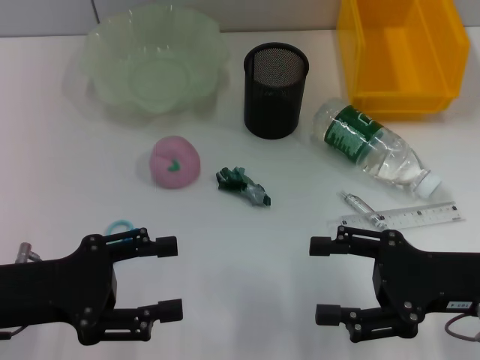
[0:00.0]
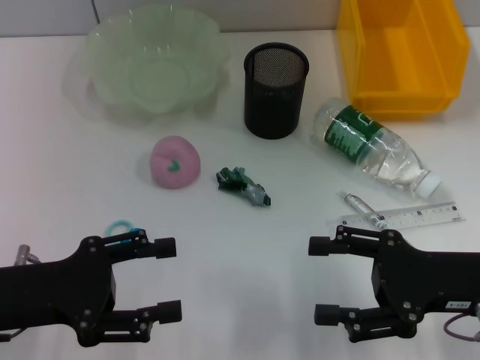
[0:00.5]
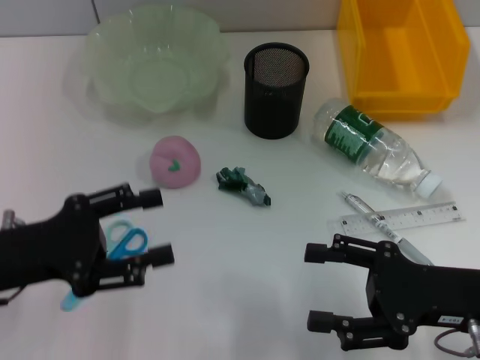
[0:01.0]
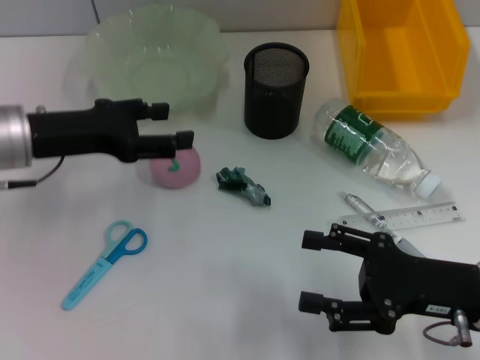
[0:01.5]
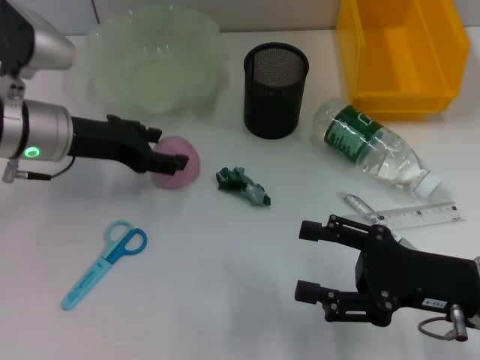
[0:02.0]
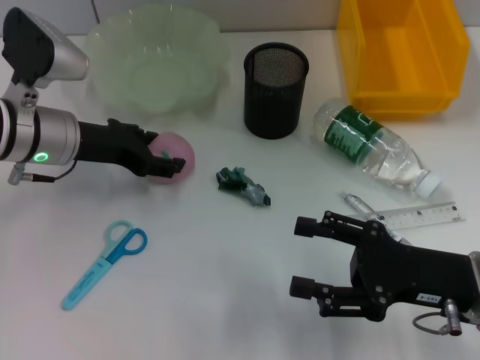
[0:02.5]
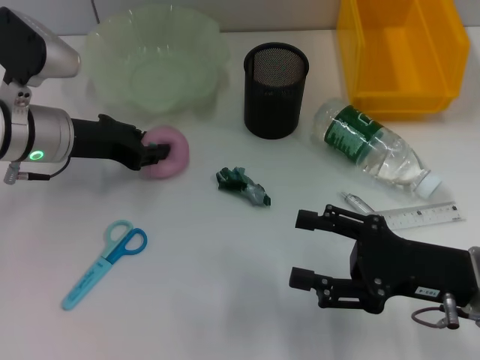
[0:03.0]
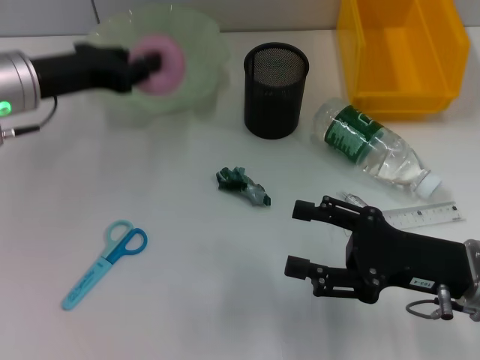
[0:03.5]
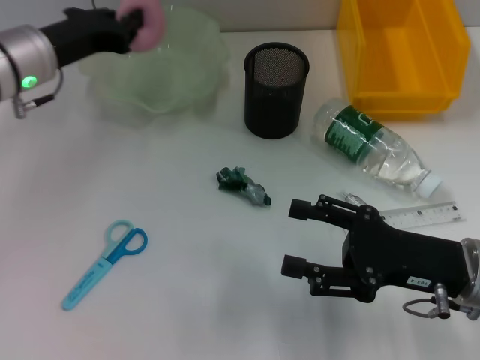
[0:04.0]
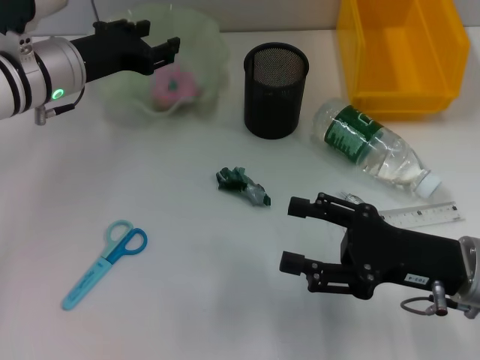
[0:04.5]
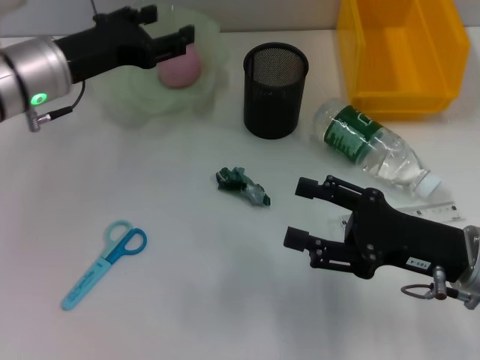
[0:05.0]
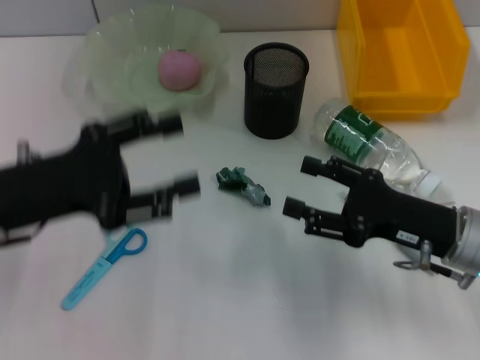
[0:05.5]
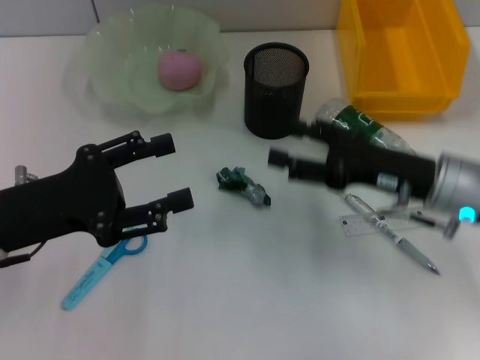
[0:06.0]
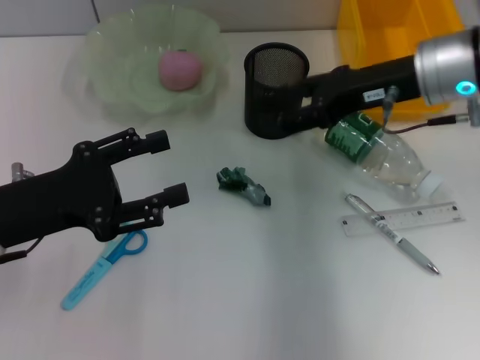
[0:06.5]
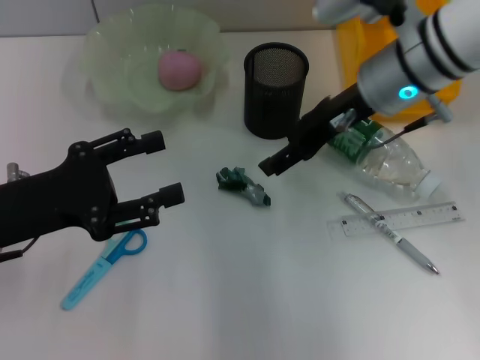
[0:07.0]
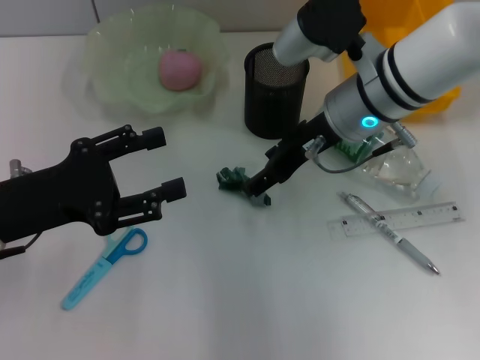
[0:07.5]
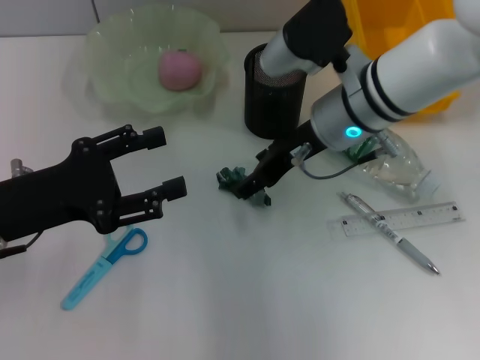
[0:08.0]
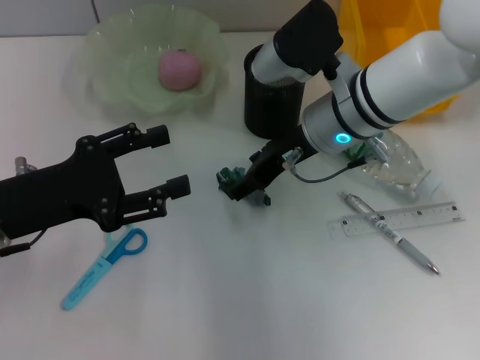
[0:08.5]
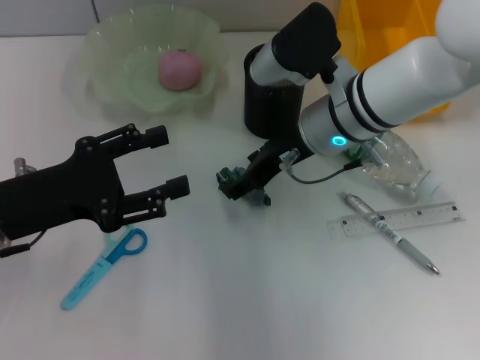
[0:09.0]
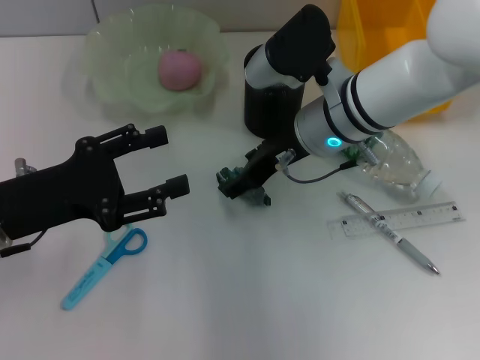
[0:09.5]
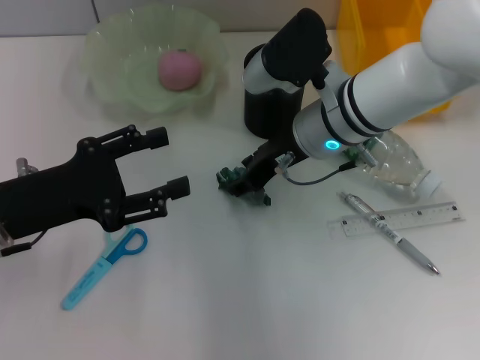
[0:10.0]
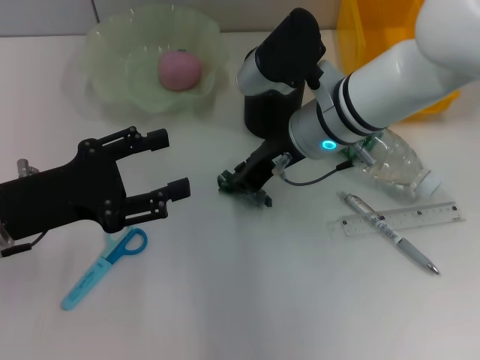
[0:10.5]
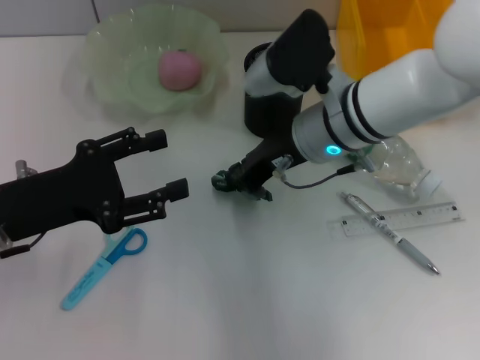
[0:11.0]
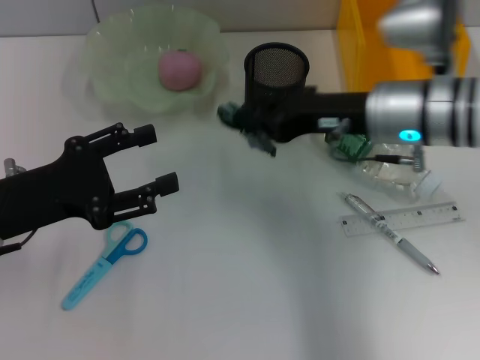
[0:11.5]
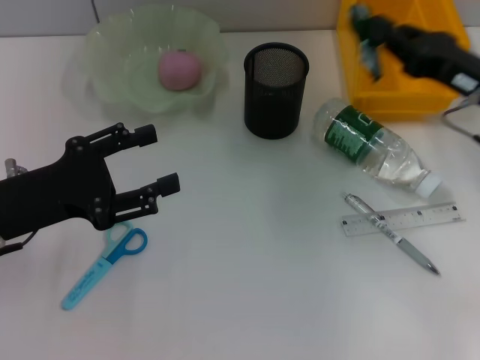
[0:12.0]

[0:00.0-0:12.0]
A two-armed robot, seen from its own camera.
Step, 0:00.0 to 0:02.5: Grab the peach with the left hand.
Step, 0:03.0 to 0:04.5: Place the peach into the fruit bowl with the left hand.
Step, 0:05.0 to 0:10.5: Grab the plastic with the right hand.
0:00.0 to 0:02.0: The left gripper is displaced forward by approximately 15 cm.
0:02.0 to 0:04.0: The left gripper closes.
0:04.0 to 0:06.0: The left gripper travels backward by some 15 cm, and opens up; the right gripper is displaced forward by approximately 5 cm.
0:06.0 to 0:08.0: The right gripper travels to the left, forward and upward by about 15 cm.
0:08.0 to 0:10.0: The grippers make only small movements.
0:10.0 to 0:12.0: The right gripper shifts about 20 cm to the right, and closes up.

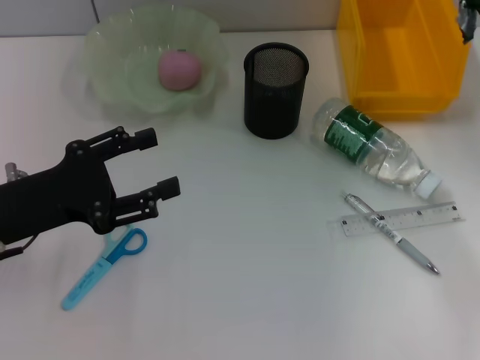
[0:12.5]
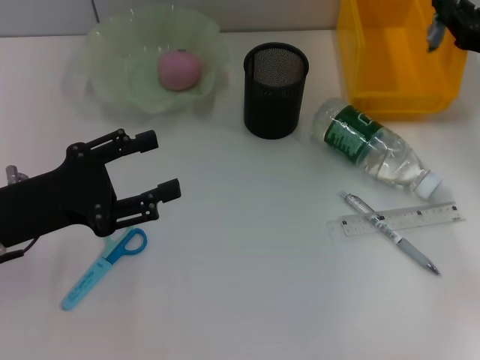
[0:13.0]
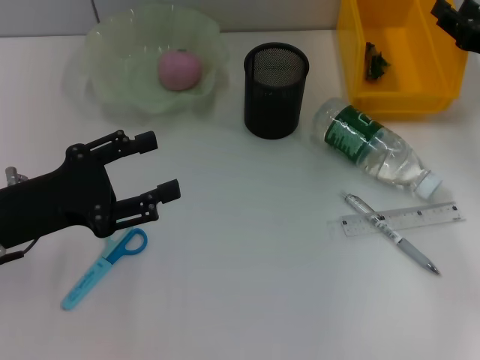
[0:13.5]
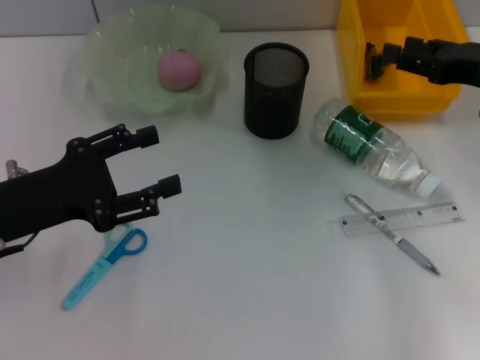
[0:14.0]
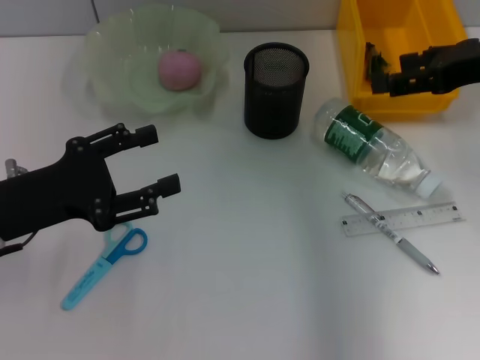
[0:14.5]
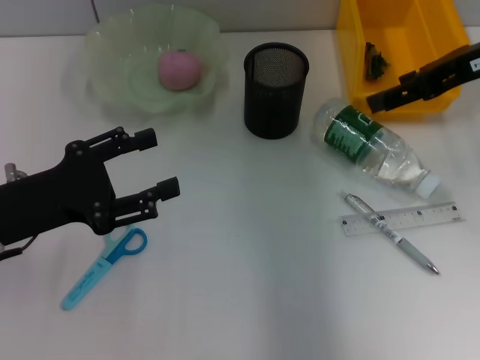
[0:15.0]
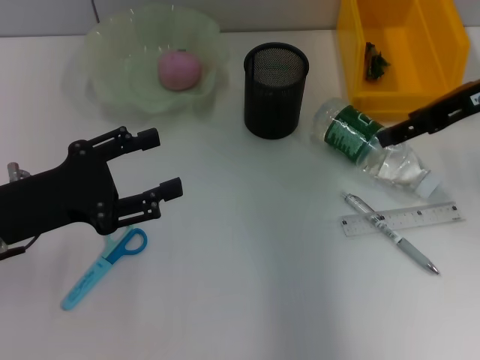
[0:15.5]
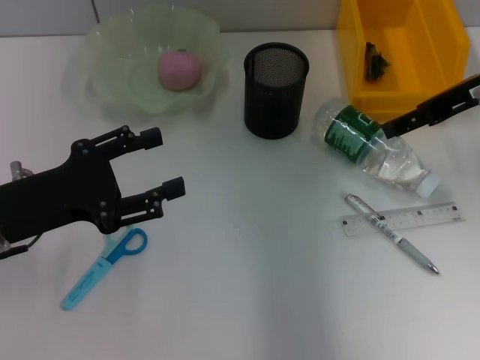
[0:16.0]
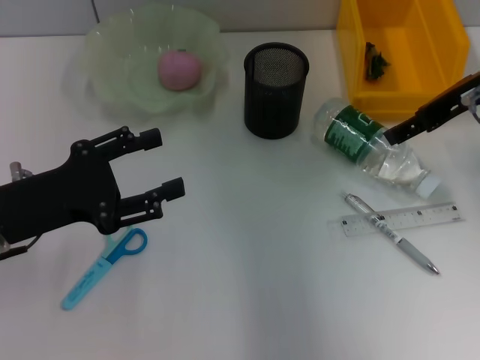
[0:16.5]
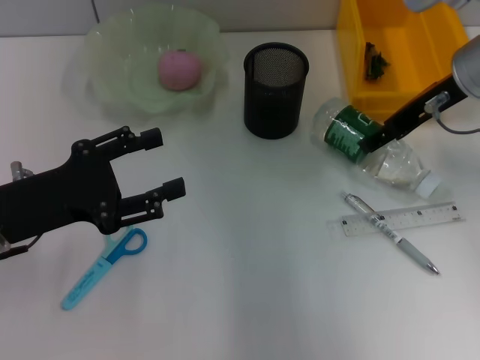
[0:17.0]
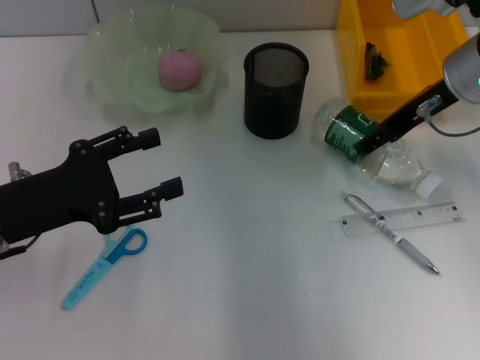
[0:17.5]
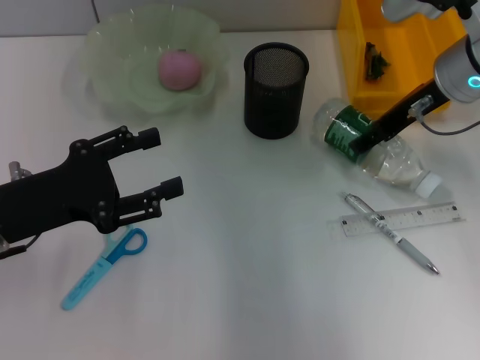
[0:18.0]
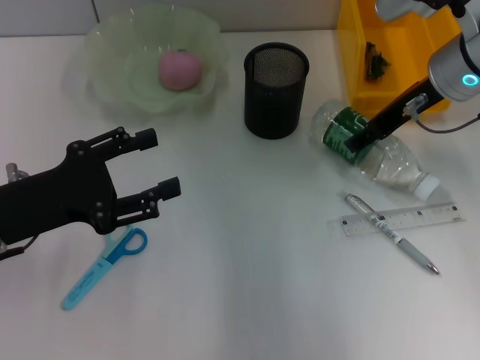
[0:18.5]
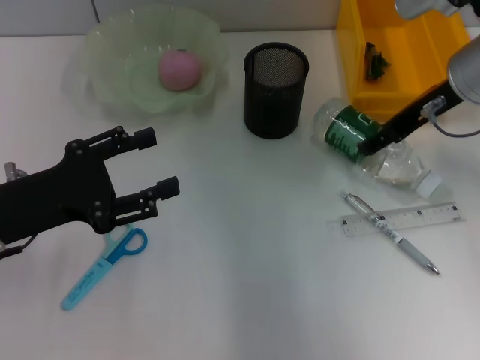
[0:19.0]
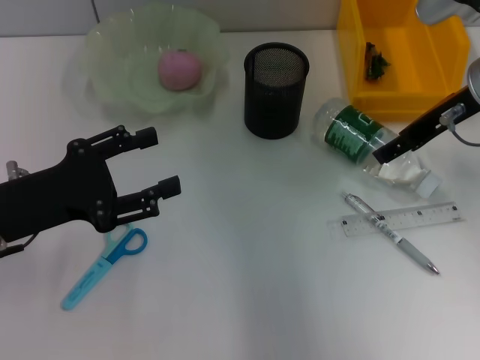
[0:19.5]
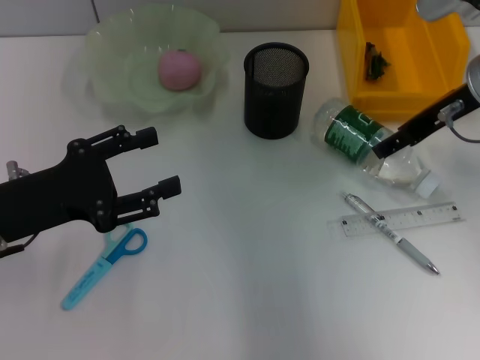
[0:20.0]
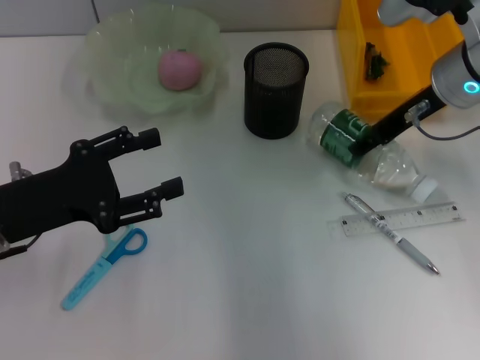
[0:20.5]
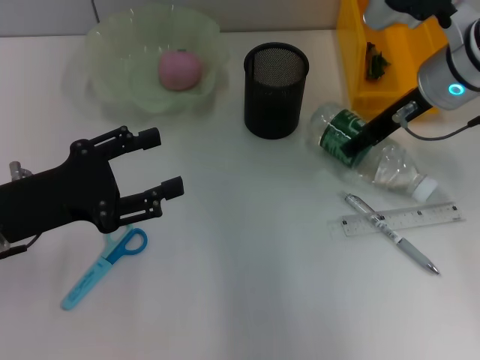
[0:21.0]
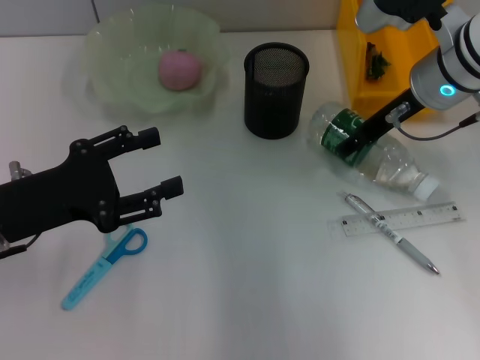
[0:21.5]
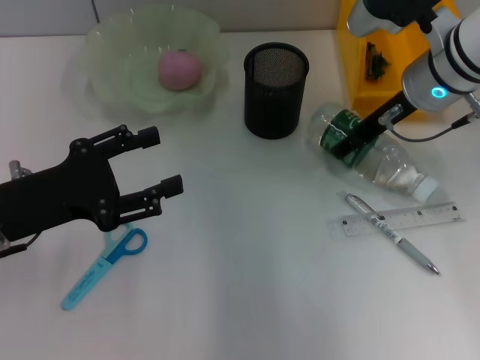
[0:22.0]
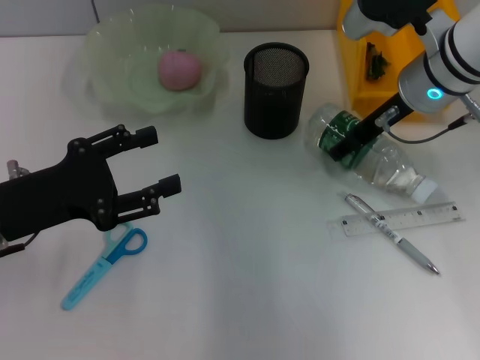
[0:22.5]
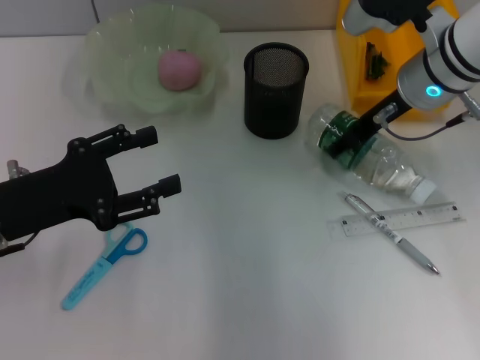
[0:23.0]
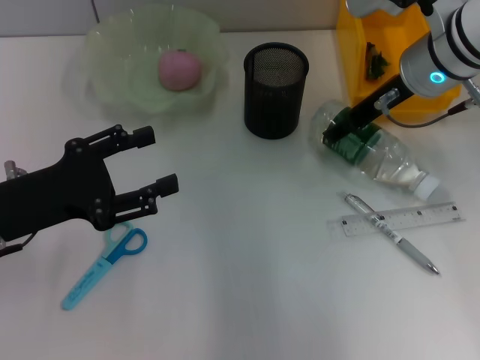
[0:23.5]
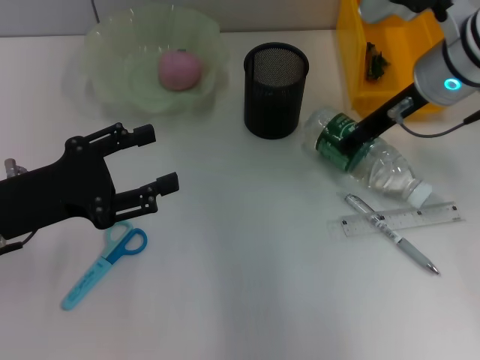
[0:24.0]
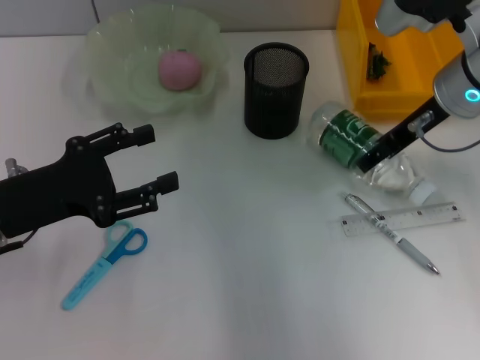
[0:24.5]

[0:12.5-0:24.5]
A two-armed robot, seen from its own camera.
0:12.5 to 0:14.5: The right gripper moves upward and to the left, roughly 10 cm, and opens up.
0:16.5 to 0:18.5: The right gripper shifts by some 5 cm.
0:18.5 to 0:24.5: The grippers stay close to where they were, moving slightly.

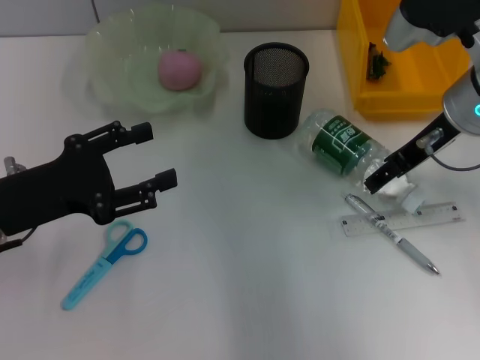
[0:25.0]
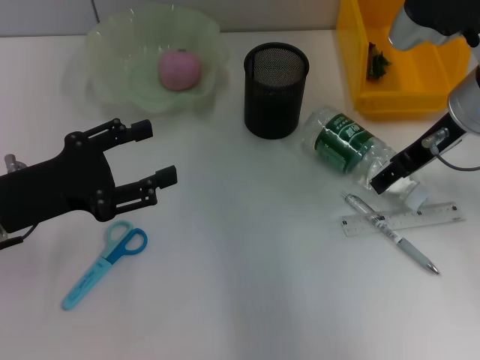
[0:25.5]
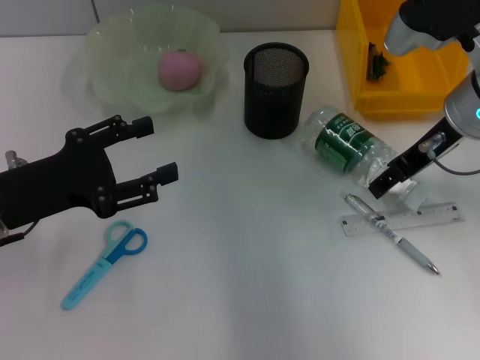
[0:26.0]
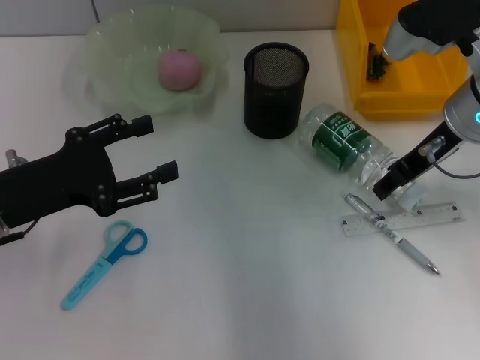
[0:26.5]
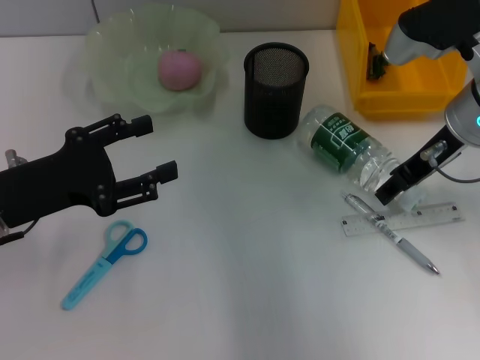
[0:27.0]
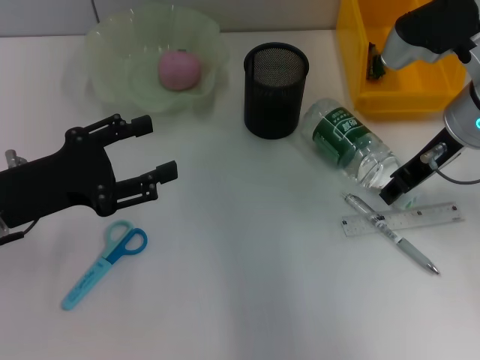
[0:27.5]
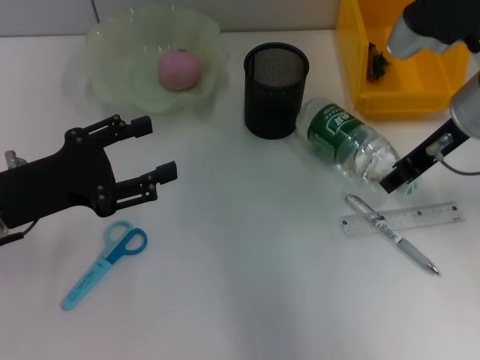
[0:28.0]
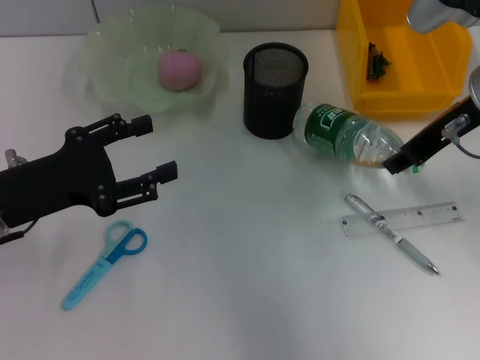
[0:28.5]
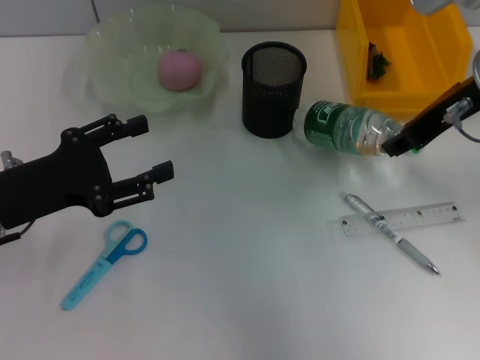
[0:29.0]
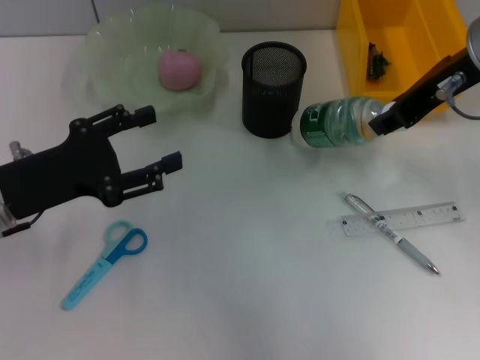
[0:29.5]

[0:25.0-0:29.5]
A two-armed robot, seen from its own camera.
0:25.0 to 0:27.0: The two grippers keep their place.
0:27.0 to 0:29.5: The right gripper travels upward by about 10 cm.
